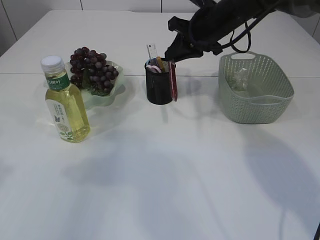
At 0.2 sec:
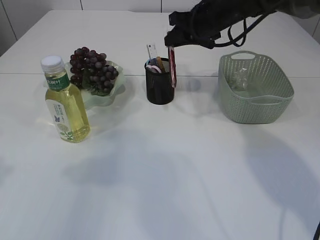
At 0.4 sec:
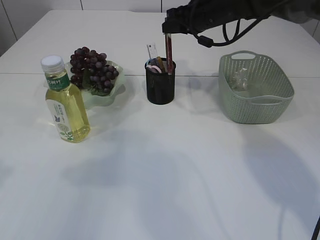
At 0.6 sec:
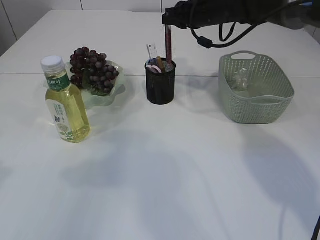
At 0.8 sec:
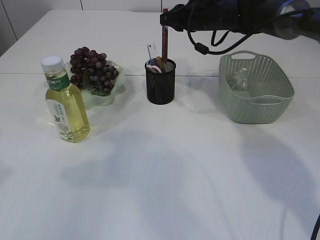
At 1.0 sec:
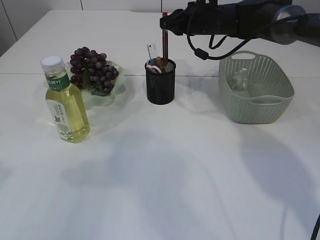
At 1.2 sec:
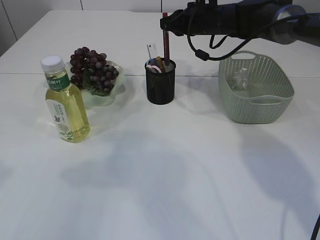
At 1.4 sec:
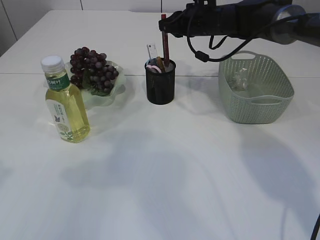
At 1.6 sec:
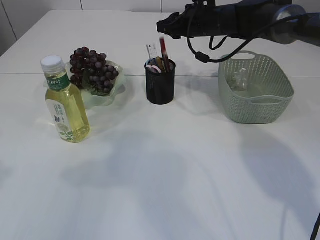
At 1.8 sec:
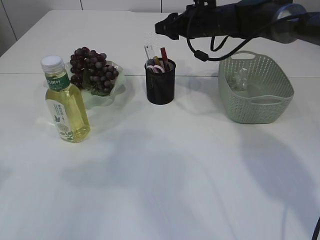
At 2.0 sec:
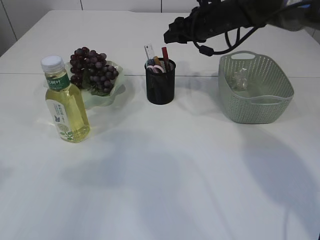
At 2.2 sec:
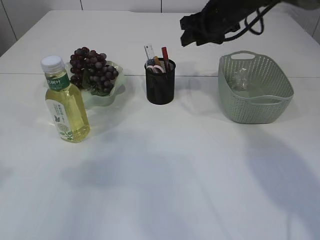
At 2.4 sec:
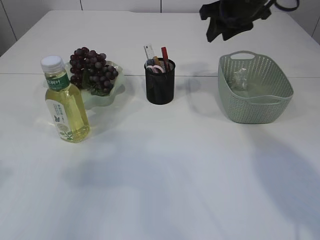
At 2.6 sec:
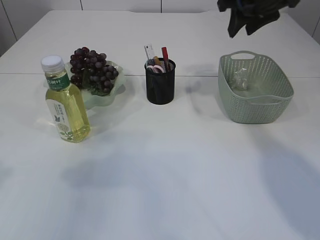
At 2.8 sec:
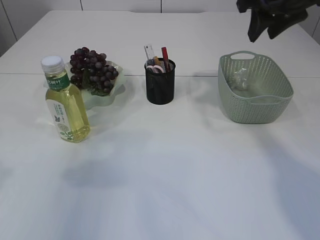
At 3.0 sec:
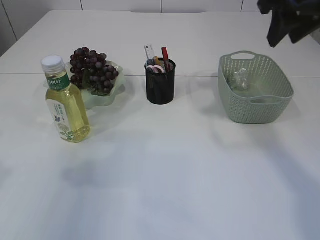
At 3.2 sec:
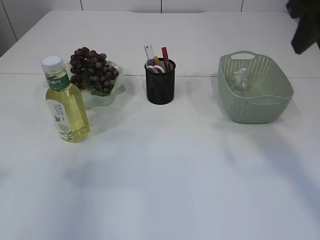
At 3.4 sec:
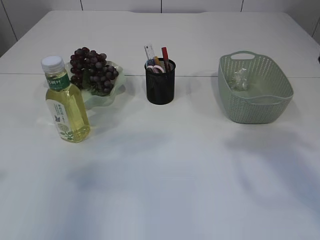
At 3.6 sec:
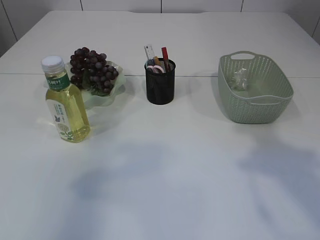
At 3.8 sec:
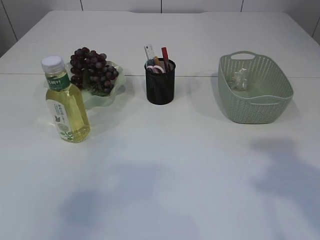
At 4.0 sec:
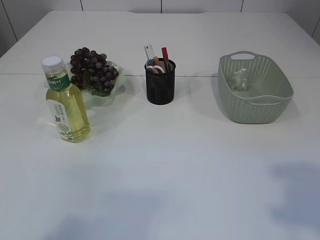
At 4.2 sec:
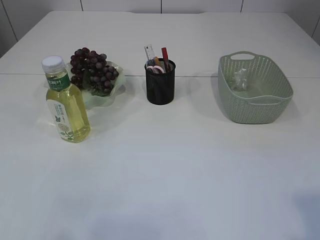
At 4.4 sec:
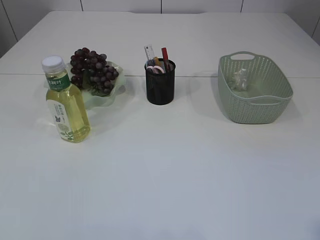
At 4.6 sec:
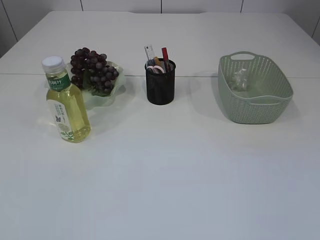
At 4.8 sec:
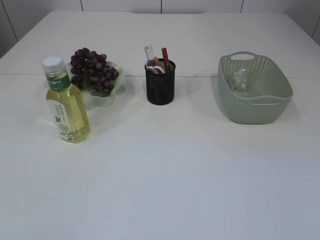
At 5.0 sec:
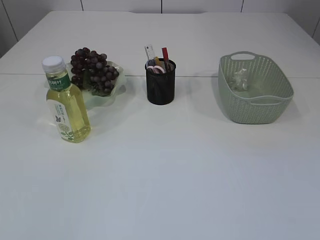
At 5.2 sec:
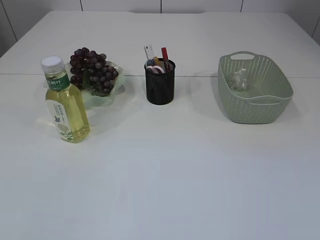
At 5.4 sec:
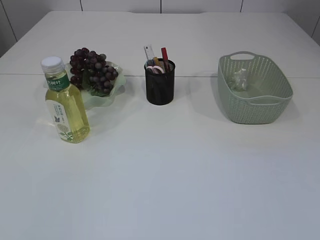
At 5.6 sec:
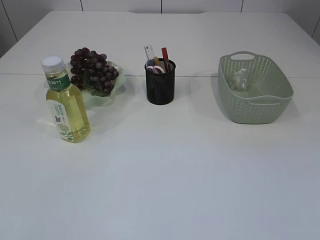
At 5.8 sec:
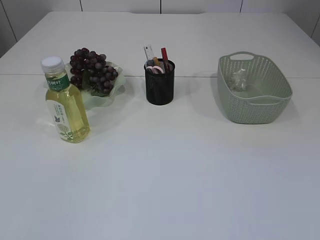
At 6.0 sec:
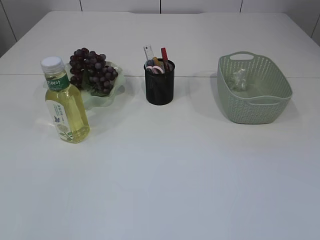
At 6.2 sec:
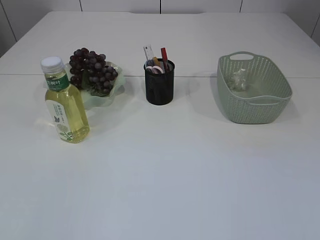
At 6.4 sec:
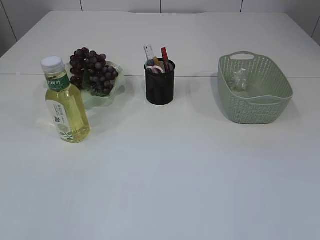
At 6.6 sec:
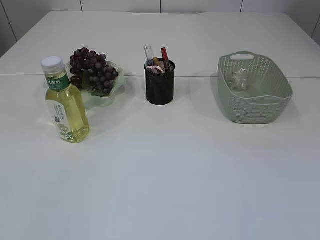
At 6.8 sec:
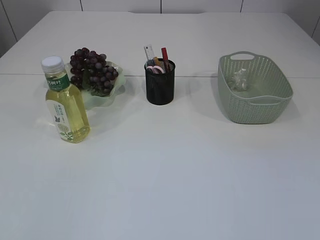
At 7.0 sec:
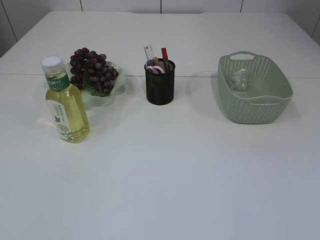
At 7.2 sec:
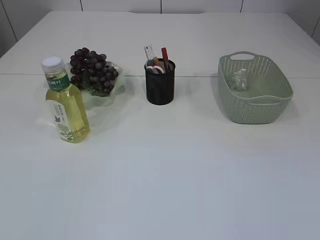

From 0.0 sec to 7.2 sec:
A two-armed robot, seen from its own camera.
Step, from 0.0 sec to 1.8 sec: place the red glue into the pen holder.
From 0.0 sec to 1.4 sec: The right gripper moves forward, roughly 5 cm.
From 1.4 sec to 2.8 sec: The right gripper is displaced backward, upward and to the right by some 20 cm, and opens up.
From 2.8 sec to 4.4 sec: The right gripper is displaced backward by approximately 40 cm; the left gripper is displaced backward by some 20 cm.

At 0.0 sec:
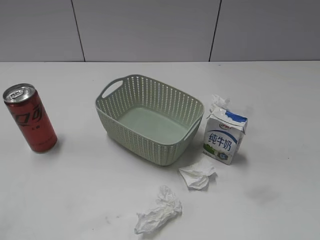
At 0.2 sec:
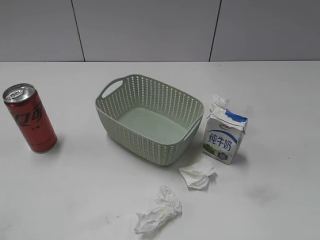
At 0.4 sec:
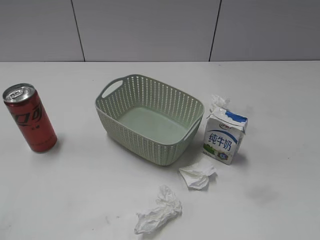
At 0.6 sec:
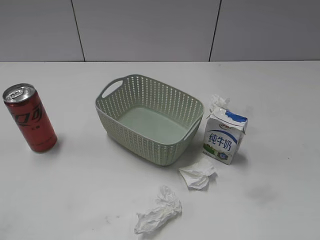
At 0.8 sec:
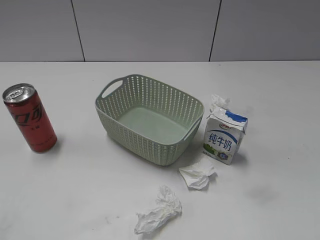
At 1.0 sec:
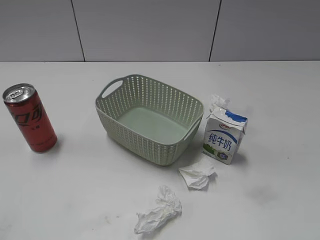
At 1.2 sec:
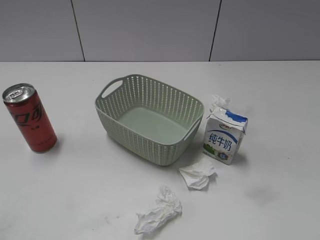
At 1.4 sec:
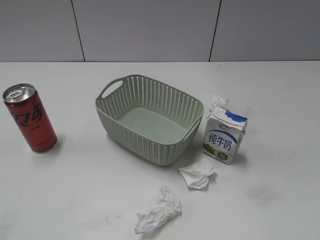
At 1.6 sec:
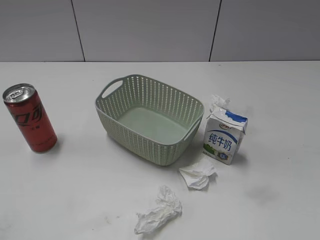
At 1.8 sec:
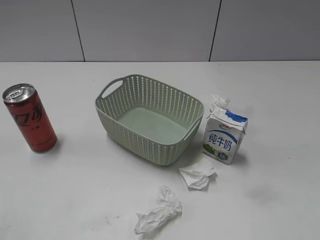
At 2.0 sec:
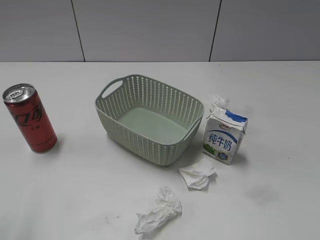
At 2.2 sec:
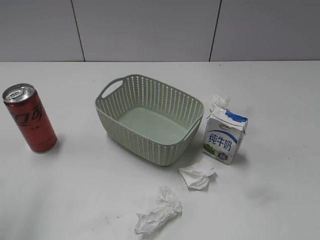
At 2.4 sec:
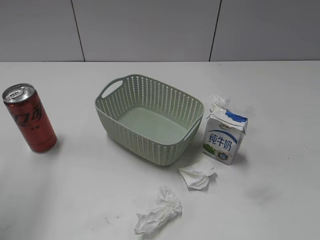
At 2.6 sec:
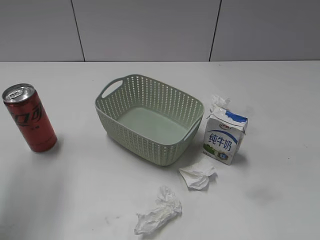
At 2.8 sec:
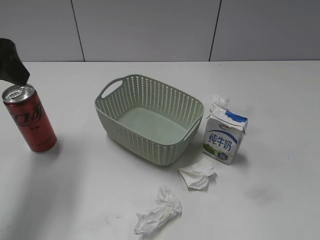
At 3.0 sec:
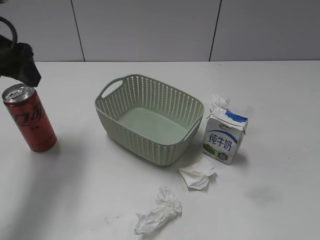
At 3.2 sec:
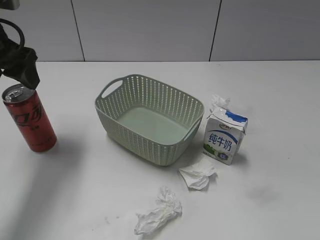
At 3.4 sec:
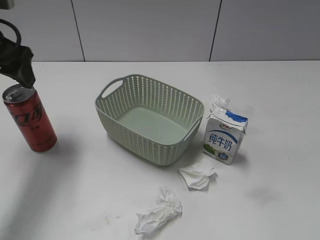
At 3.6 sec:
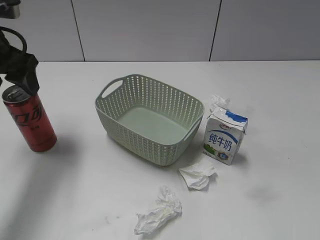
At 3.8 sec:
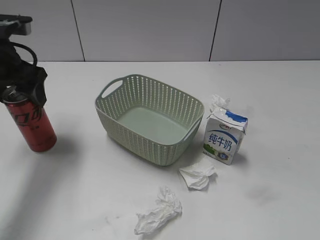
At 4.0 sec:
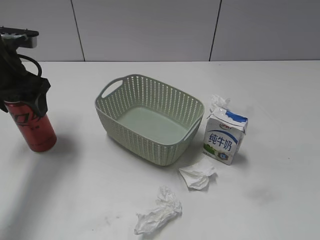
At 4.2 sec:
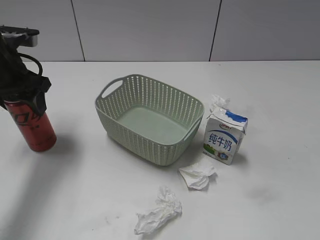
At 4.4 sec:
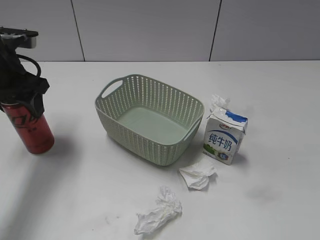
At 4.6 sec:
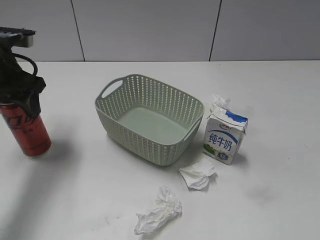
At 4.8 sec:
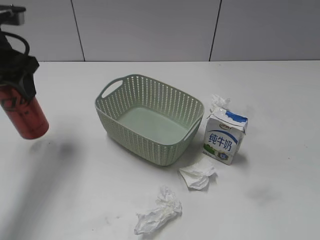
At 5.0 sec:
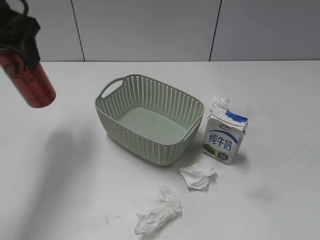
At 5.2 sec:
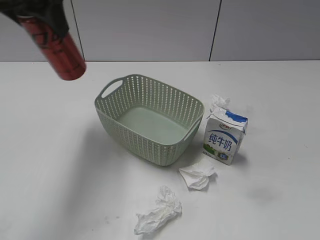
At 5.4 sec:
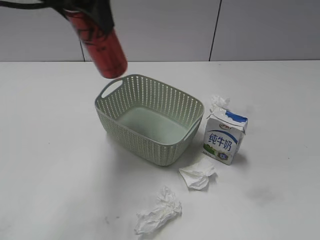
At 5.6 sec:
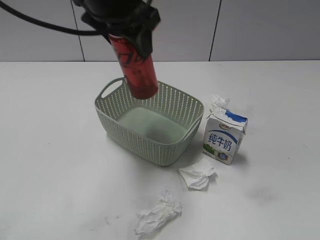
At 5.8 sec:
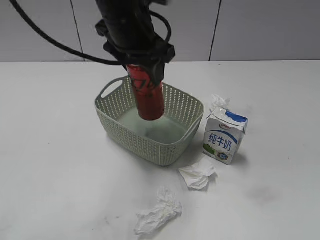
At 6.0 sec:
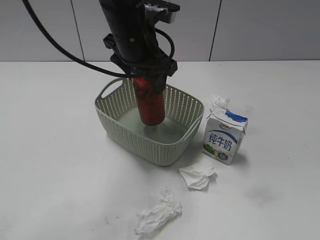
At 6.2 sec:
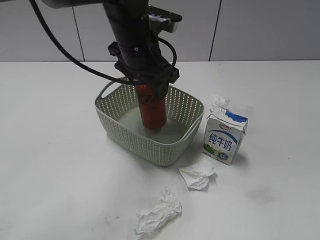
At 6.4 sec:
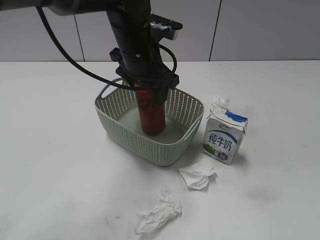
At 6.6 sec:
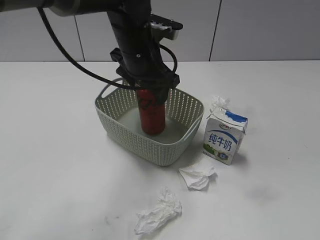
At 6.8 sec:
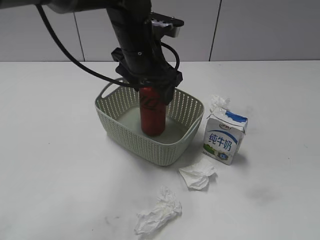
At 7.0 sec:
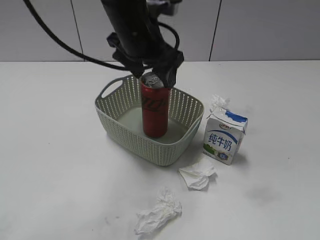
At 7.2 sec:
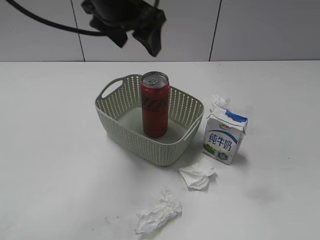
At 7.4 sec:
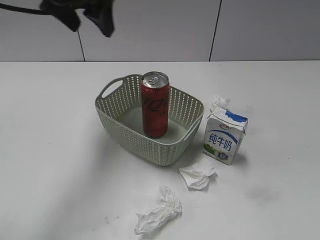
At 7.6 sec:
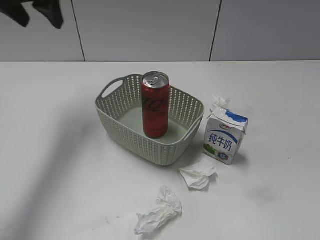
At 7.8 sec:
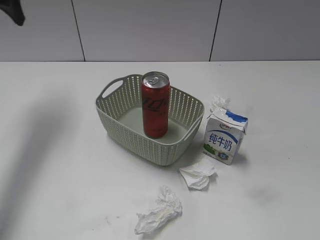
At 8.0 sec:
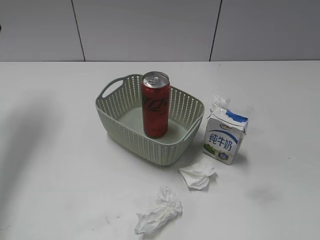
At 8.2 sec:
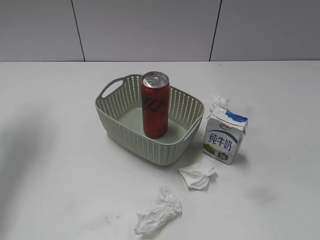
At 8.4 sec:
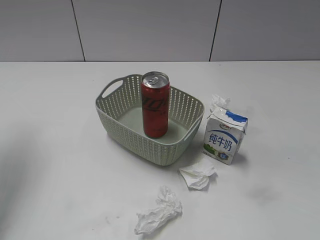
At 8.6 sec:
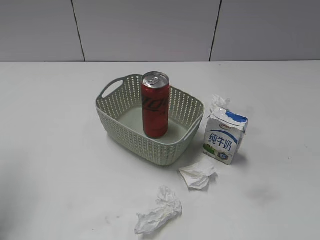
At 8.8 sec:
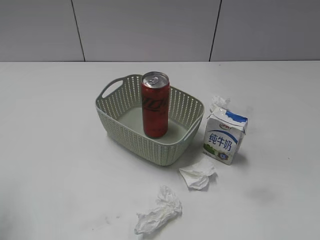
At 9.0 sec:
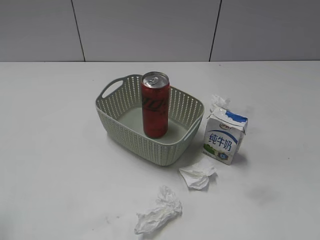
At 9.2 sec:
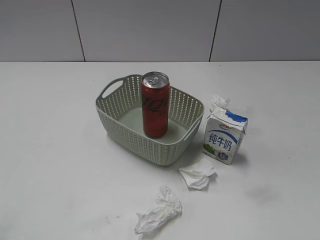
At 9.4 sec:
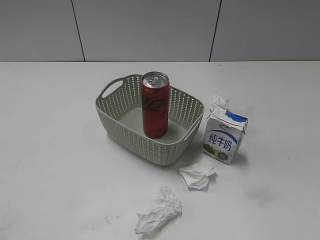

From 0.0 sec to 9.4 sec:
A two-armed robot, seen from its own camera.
Step, from 2.8 sec to 4.2 sec: Grasp the cola can with left gripper.
Step, from 4.4 sec to 7.0 sec: Place the cola can in the basket with left gripper.
From 1.6 sec to 3.2 sec: The left gripper shifts about 30 cm forward, and opens up.
From 3.2 sec to 4.8 sec: The left gripper closes.
From 4.8 sec to 6.2 sec: The left gripper is displaced to the right by roughly 20 cm.
From 6.2 sec to 7.8 sec: The left gripper is displaced to the left and upward by roughly 25 cm, and opens its fingers.
From 7.8 sec to 9.4 sec: The left gripper moves backward, about 35 cm.
